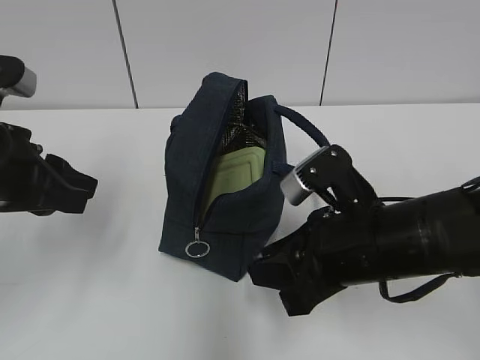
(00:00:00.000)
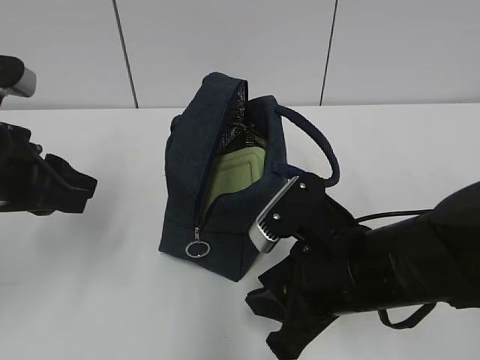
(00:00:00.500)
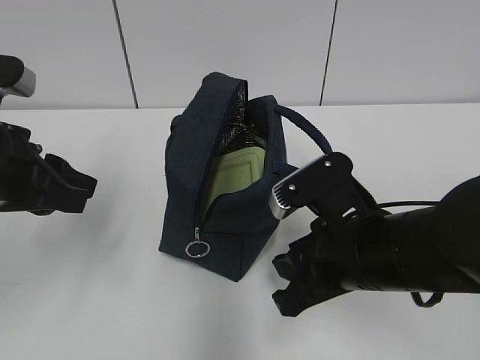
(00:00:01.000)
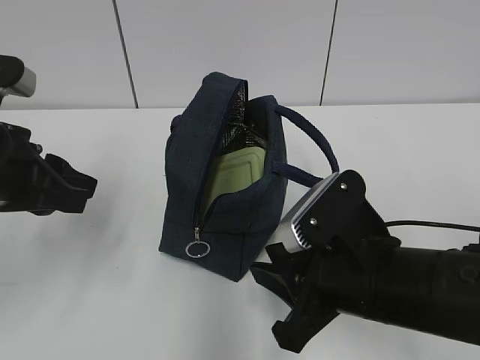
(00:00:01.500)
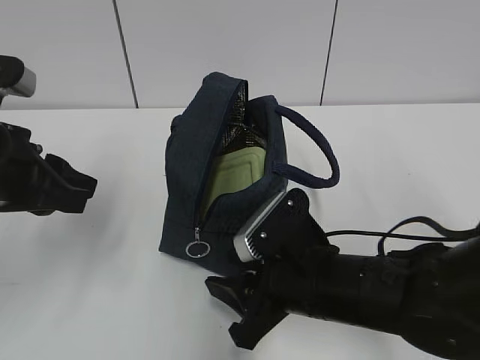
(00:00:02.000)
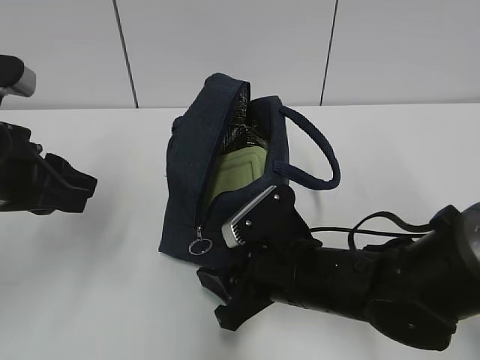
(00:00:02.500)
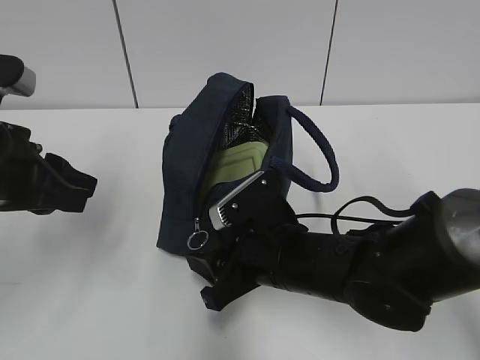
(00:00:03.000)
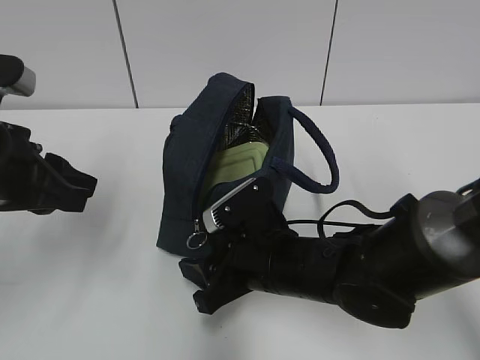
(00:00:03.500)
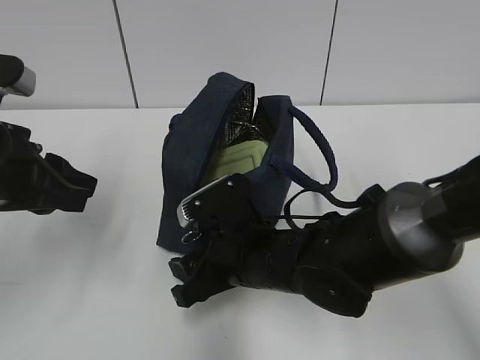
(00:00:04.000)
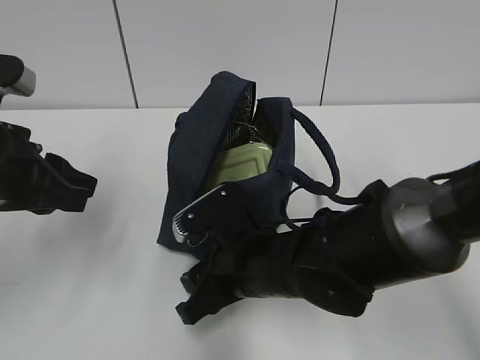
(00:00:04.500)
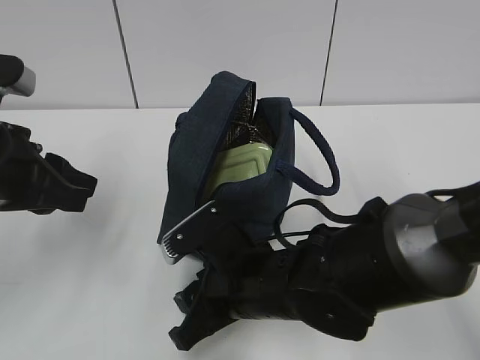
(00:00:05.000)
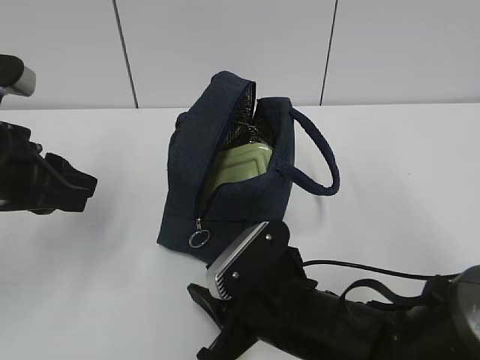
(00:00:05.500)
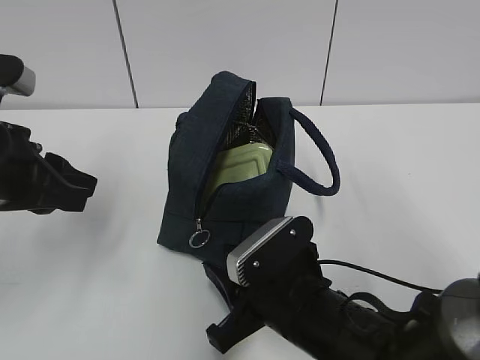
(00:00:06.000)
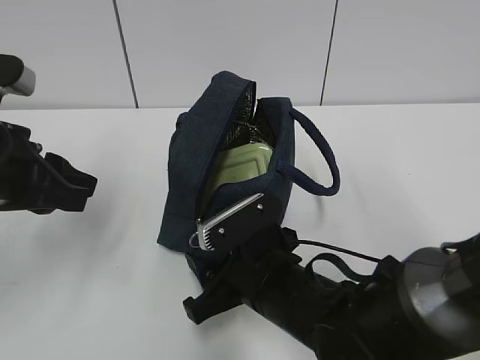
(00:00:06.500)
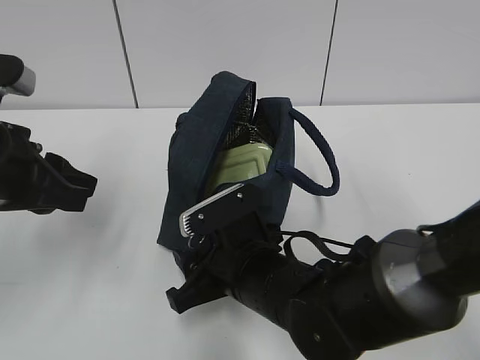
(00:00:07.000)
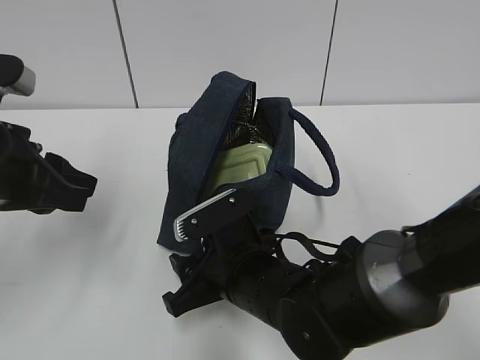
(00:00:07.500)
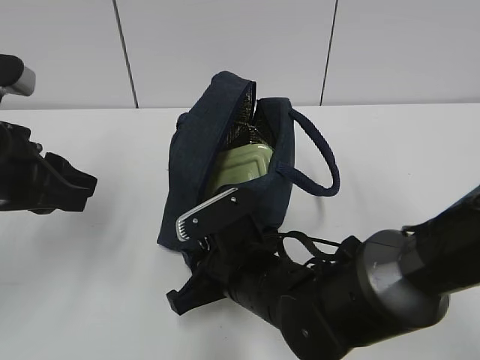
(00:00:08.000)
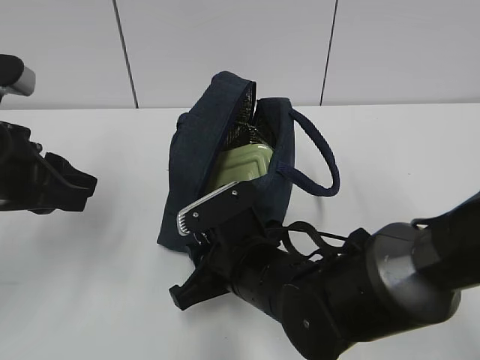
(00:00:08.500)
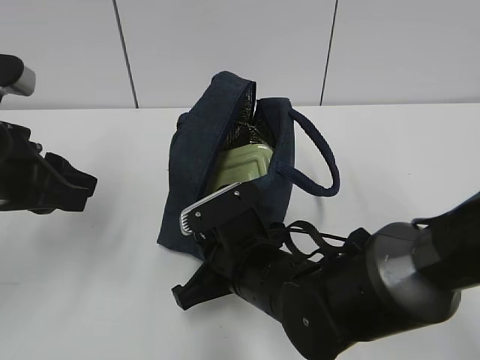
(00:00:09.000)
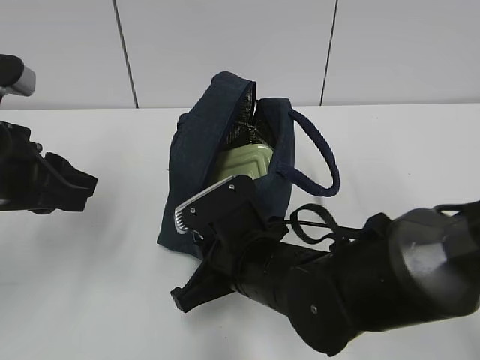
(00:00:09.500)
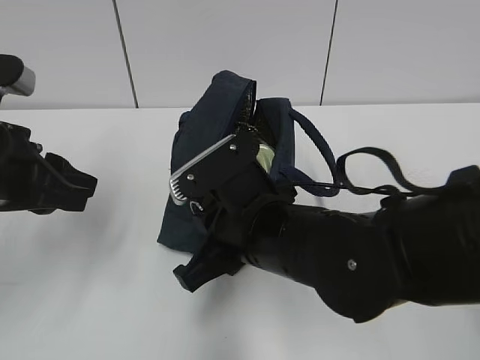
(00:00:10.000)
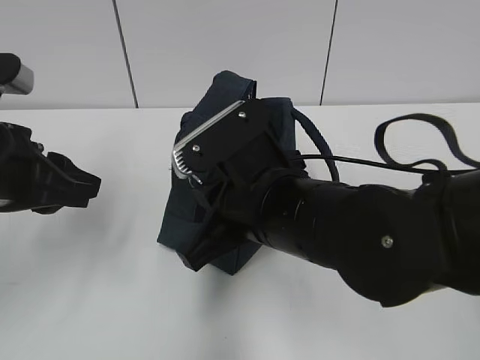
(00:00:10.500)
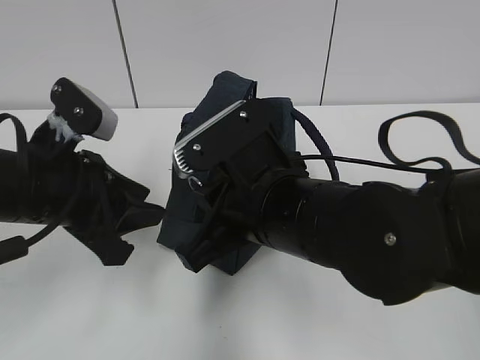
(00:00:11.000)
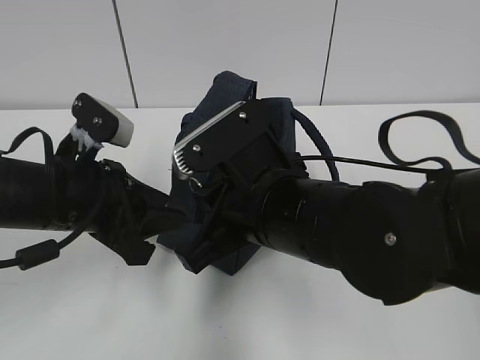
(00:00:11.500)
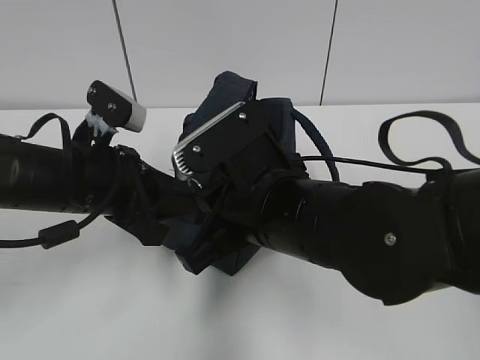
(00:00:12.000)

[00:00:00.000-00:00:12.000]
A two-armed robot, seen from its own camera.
Step, 00:00:00.000 to 00:00:12.000: Grab the lunch bag with your left hand.
00:00:00.000 to 00:00:02.000: The right gripper heads downward, covering some 5 cm.
00:00:02.000 to 00:00:04.000: The right gripper goes about 5 cm to the left.
00:00:04.000 to 00:00:06.000: The right gripper is displaced backward by approximately 5 cm.
00:00:06.000 to 00:00:08.000: The right gripper shifts by some 5 cm.
00:00:08.000 to 00:00:10.000: The right gripper is displaced upward by approximately 10 cm, and closes.
00:00:10.000 to 00:00:12.000: The left gripper heads to the right and downward, covering about 10 cm.

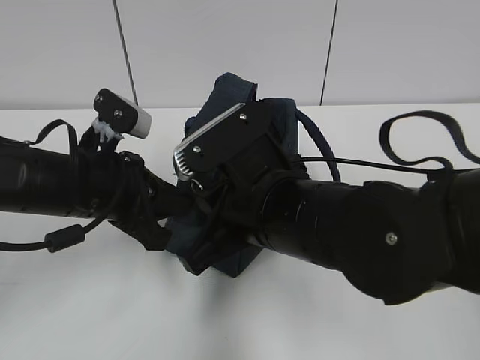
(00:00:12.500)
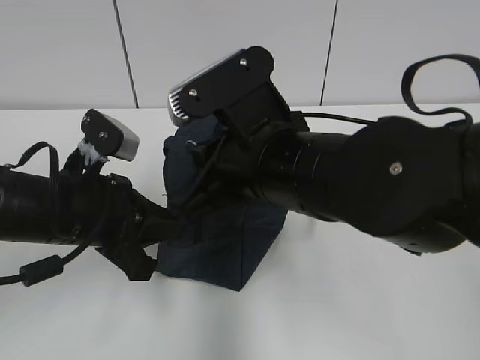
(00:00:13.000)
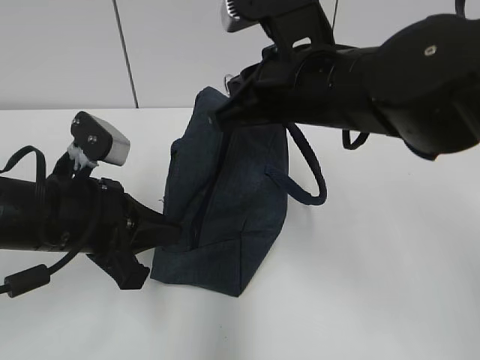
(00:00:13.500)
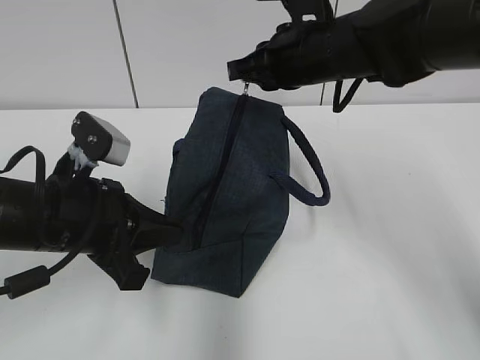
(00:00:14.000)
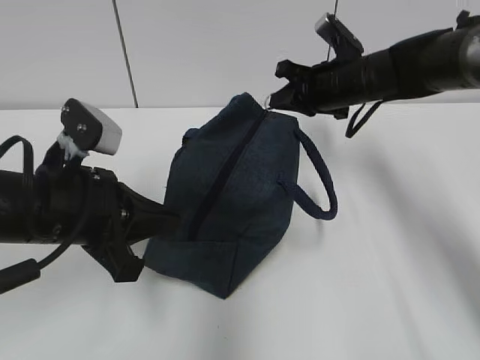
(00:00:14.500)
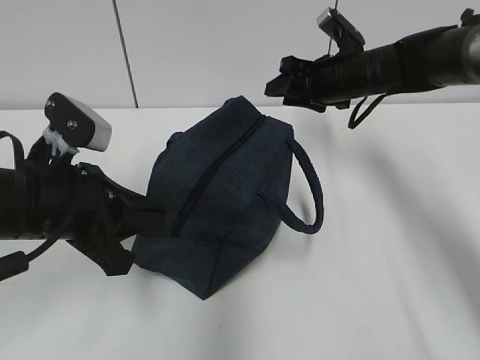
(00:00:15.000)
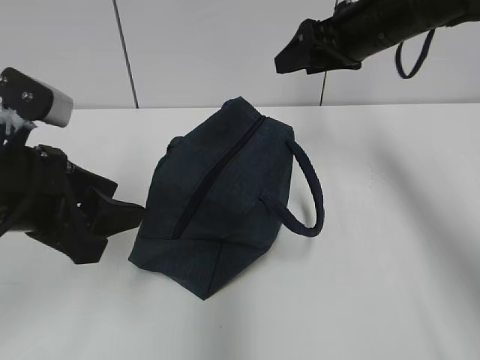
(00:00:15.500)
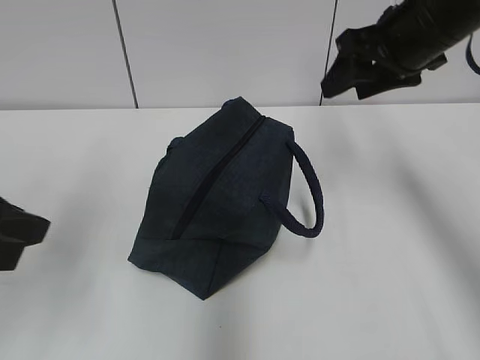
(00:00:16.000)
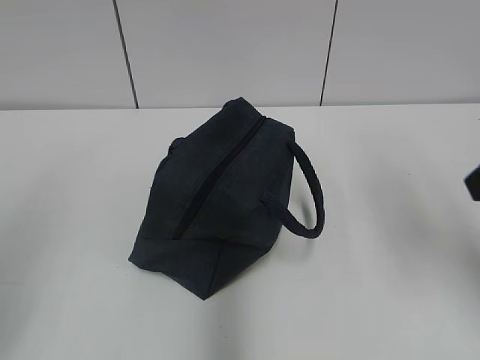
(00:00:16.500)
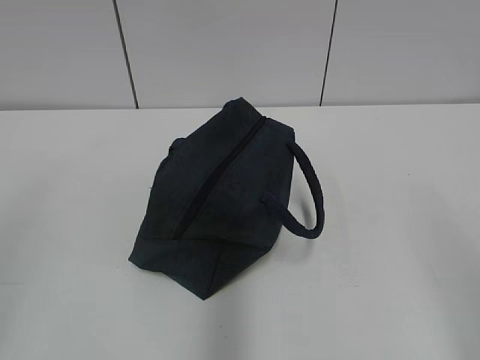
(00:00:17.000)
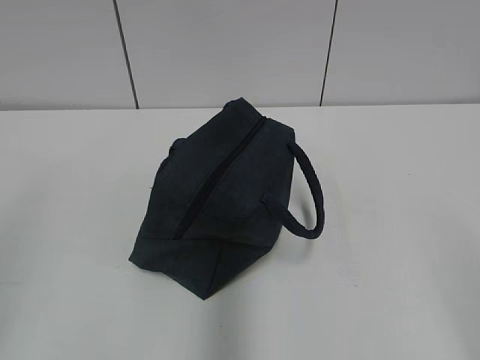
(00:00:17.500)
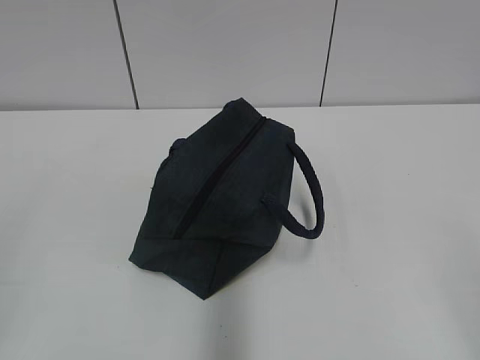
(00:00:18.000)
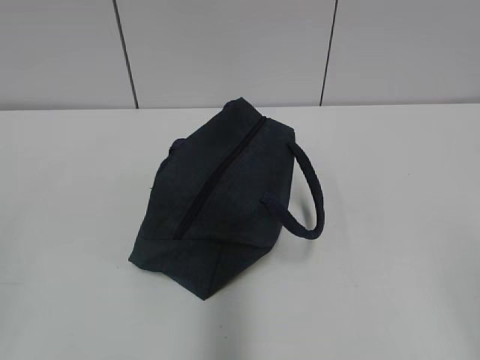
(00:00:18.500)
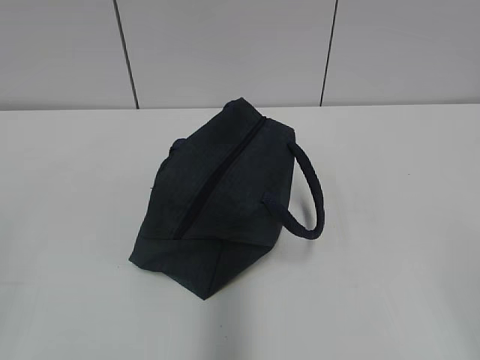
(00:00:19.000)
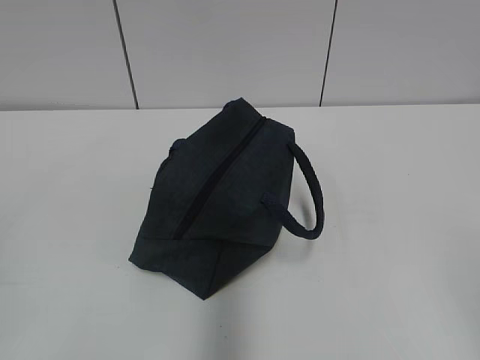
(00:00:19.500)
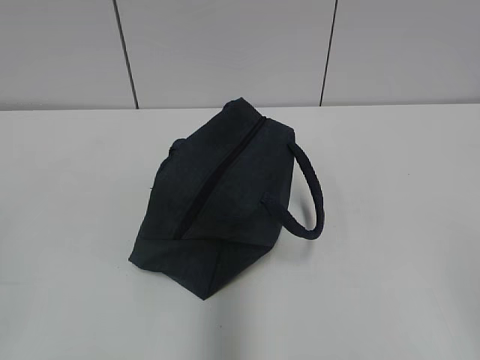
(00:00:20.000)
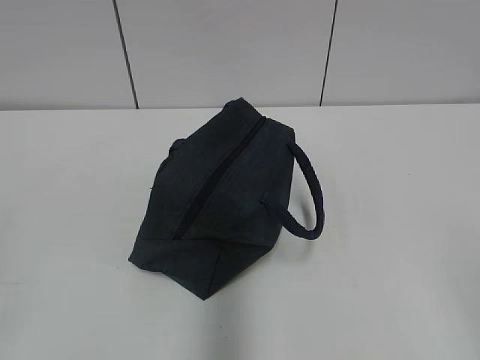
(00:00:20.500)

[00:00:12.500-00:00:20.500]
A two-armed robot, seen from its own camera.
Step, 00:00:12.500 to 00:00:14.500: Pull the zipper with your right hand.
00:00:12.500 to 00:00:14.500: The right gripper shifts some 30 cm forward and to the right.
00:00:14.500 to 00:00:16.500: The left gripper goes some 25 cm backward, to the left and upward, and opens up. Meanwhile the right gripper is displaced backward and upward by approximately 30 cm, and opens its fingers.
00:00:16.500 to 00:00:18.500: The right gripper travels backward by some 20 cm.
